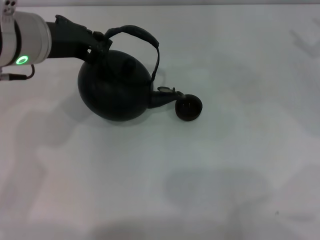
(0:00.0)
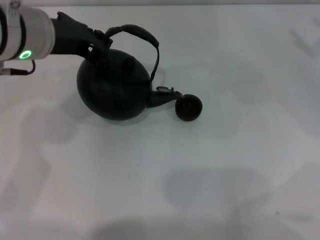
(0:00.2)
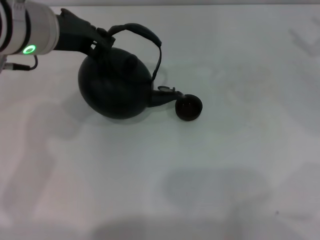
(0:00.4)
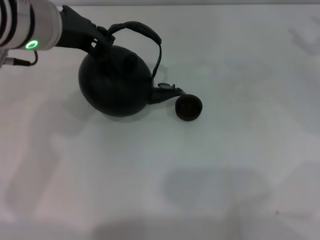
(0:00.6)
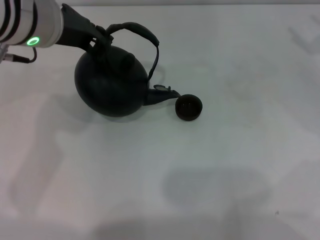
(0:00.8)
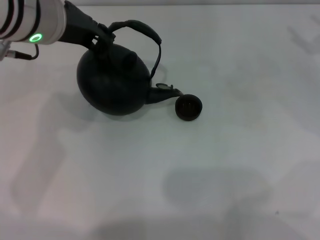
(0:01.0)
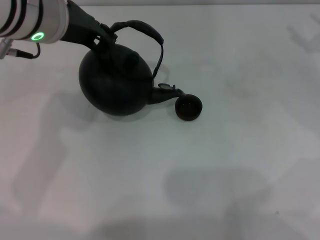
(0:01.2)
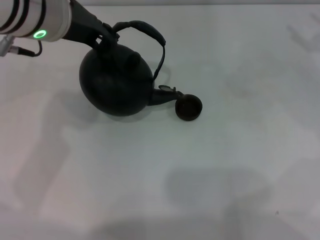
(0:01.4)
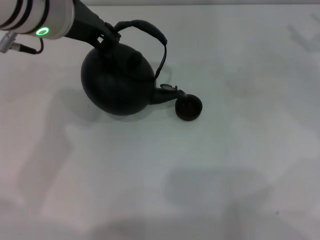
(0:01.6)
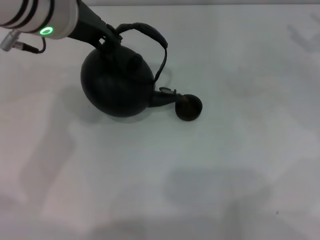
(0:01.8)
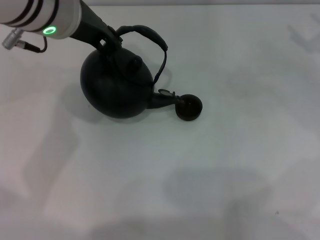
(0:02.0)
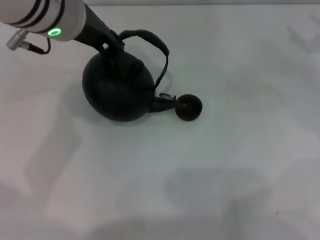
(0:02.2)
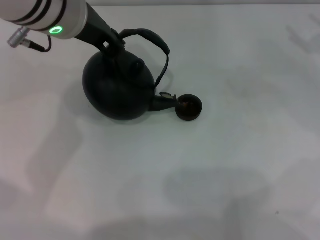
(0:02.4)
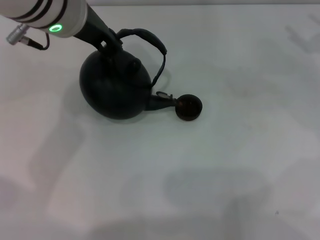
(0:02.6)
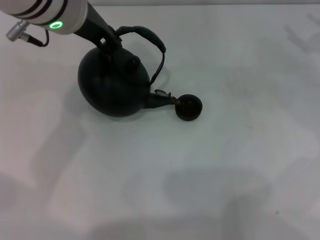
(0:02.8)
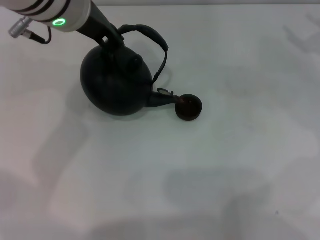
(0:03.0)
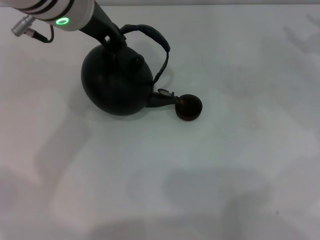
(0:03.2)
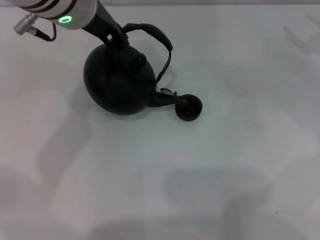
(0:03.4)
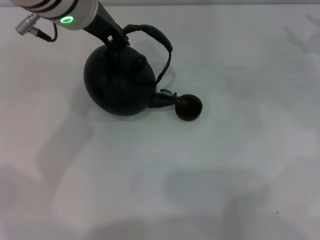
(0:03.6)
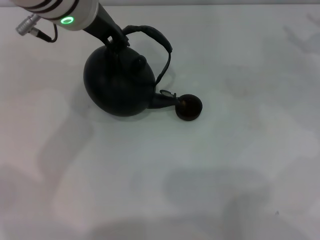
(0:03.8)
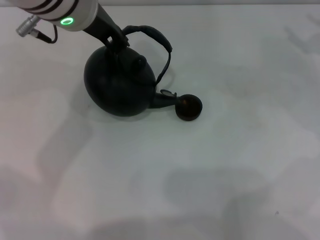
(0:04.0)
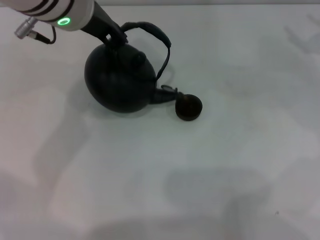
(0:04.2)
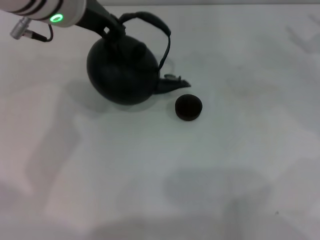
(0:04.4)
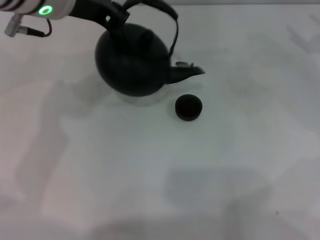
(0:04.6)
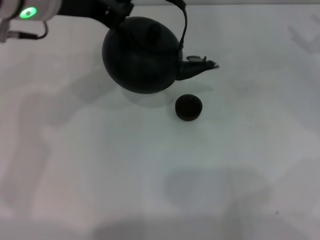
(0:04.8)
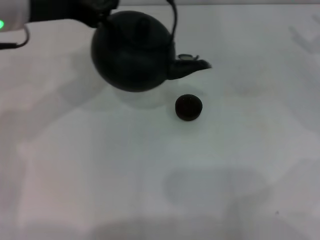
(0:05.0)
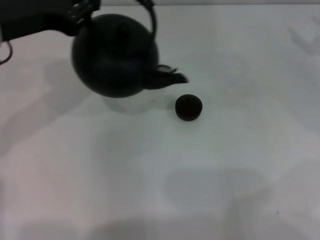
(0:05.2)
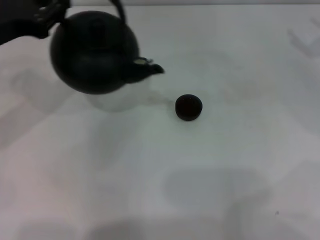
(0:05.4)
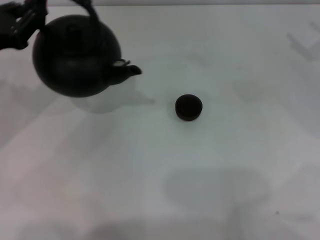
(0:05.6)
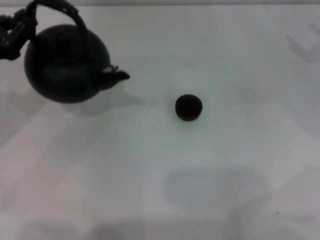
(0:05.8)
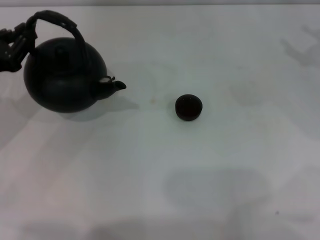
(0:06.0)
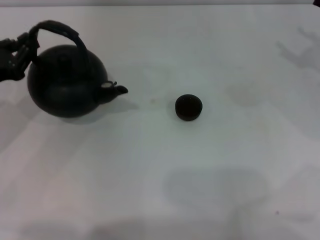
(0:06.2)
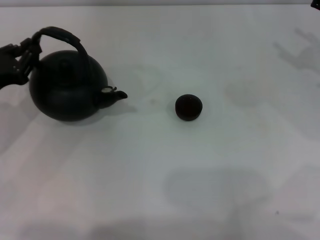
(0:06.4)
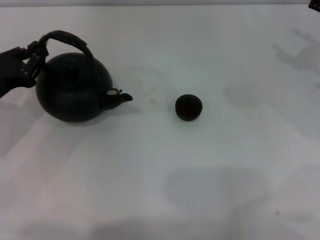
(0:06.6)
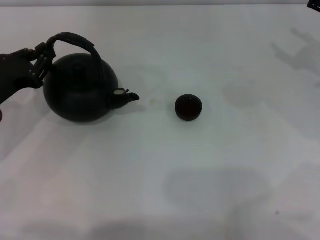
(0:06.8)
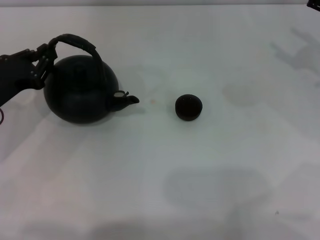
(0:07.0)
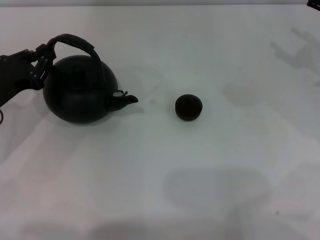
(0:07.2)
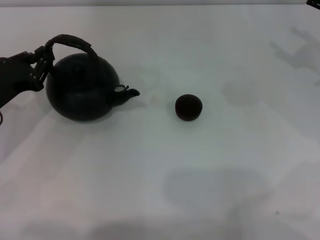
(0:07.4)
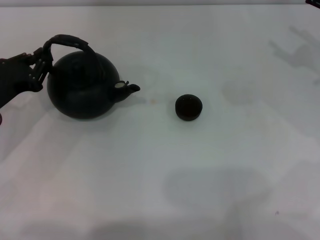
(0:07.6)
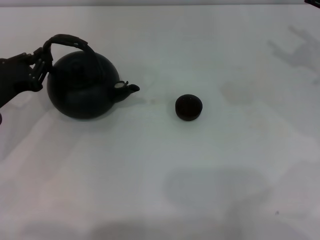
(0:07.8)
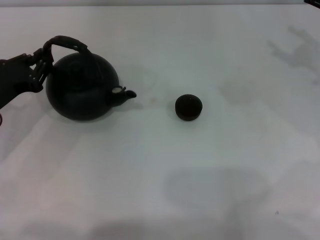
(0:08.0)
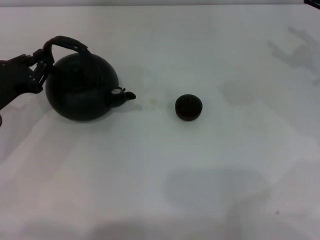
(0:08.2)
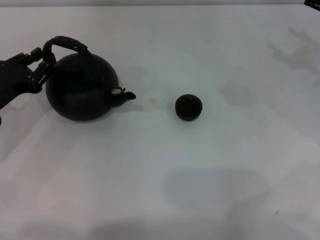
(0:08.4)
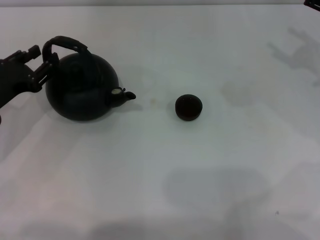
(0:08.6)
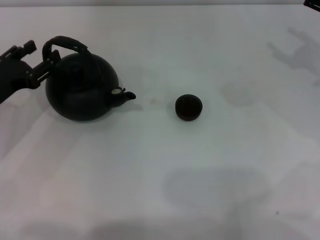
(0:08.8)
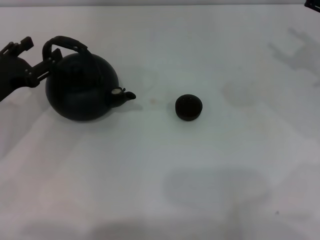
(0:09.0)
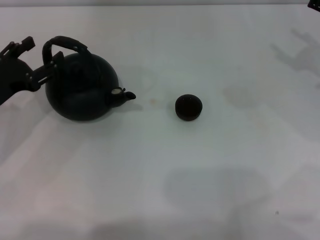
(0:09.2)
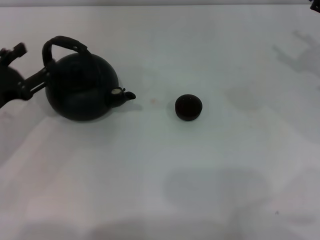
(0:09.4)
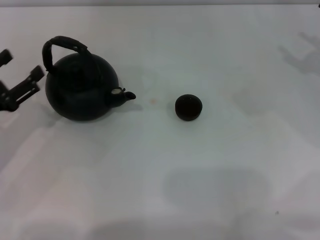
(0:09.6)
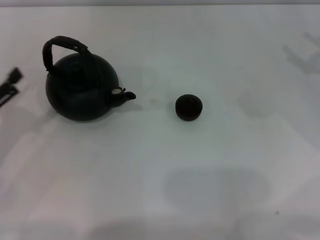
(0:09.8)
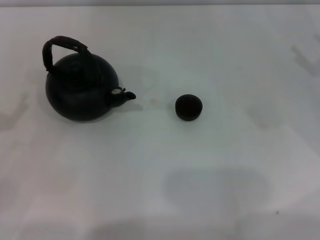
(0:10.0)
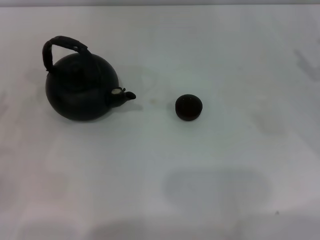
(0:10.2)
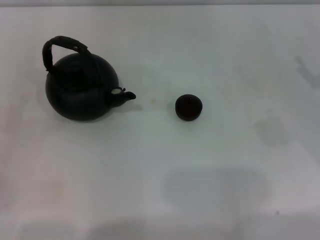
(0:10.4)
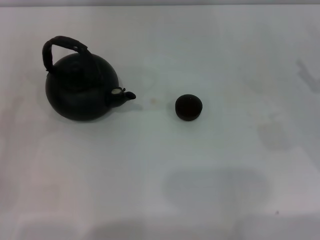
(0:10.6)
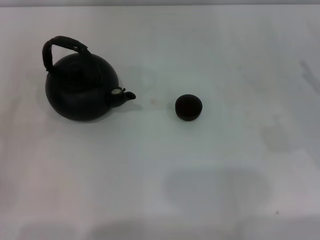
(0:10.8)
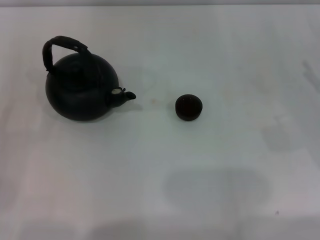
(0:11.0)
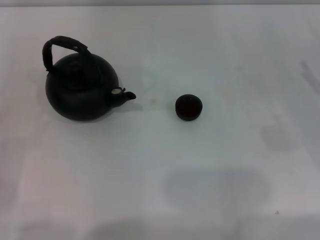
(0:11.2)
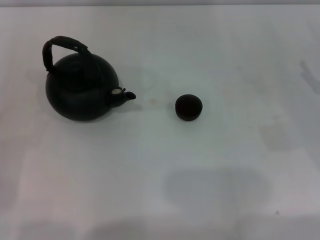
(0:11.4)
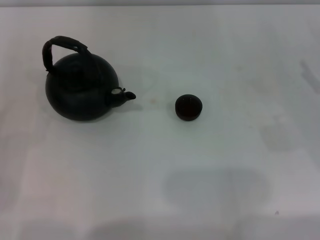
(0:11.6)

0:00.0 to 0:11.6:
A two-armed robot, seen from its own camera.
Task of the whole recording: Grasp the handle of the teapot with one hand and pour tea into the teacup.
Step, 0:00.0 to 0:04.6: Pour tea into the teacup with the left gripper.
Step, 0:04.8 to 0:09.4: Put down the teapot with the left gripper.
0:00.0 to 0:01.4: There are only small adjustments of the grippers.
0:01.4 to 0:04.4: The grippers move only a little.
0:04.4 to 0:05.8: The left gripper heads to the left and downward, covering about 20 cm.
0:05.8 to 0:07.2: The left gripper goes approximately 5 cm downward.
0:07.2 to 0:08.8: The left gripper opens its fingers.
0:08.8 to 0:10.2: The left gripper is displaced backward and to the left by approximately 15 cm, and opens.
